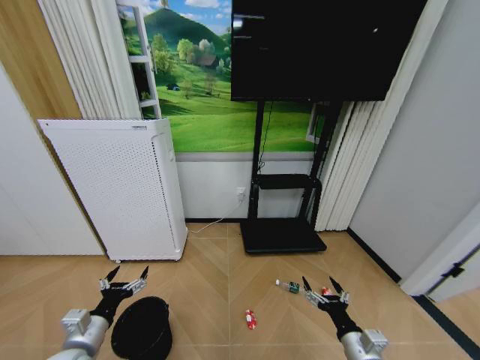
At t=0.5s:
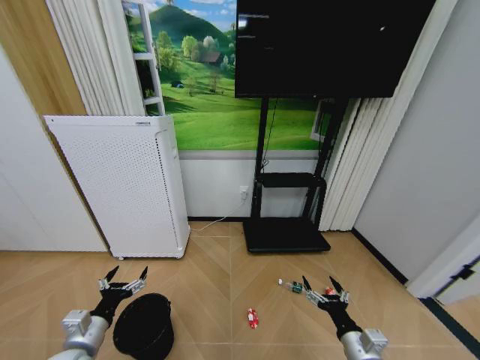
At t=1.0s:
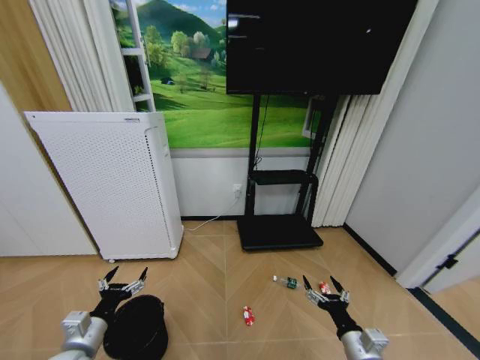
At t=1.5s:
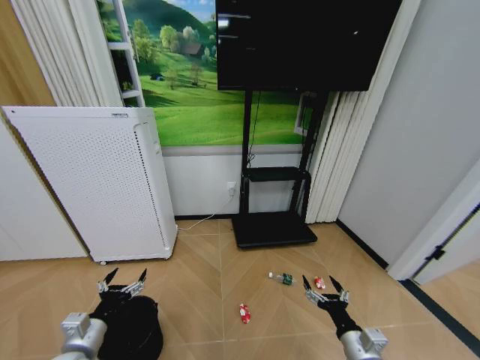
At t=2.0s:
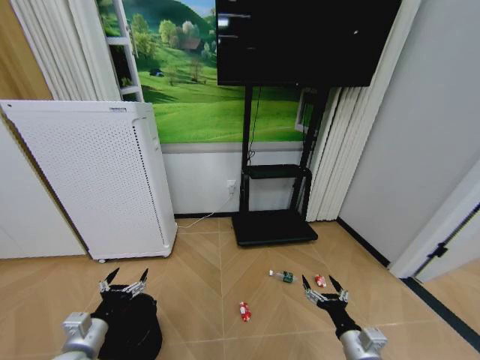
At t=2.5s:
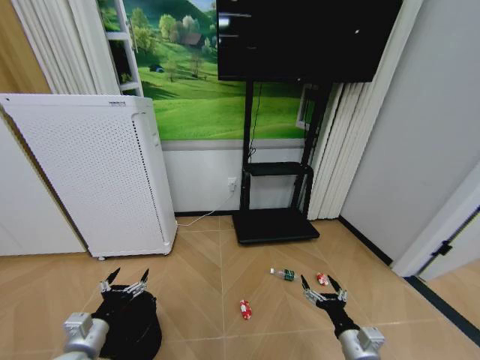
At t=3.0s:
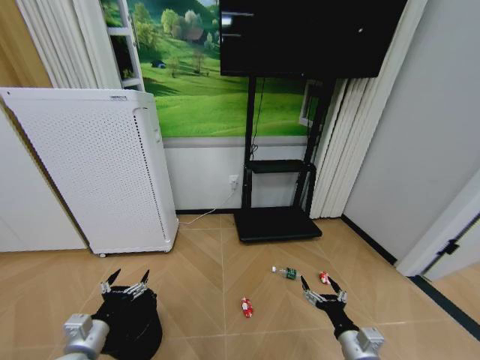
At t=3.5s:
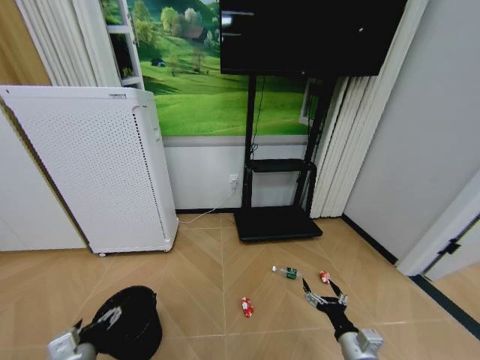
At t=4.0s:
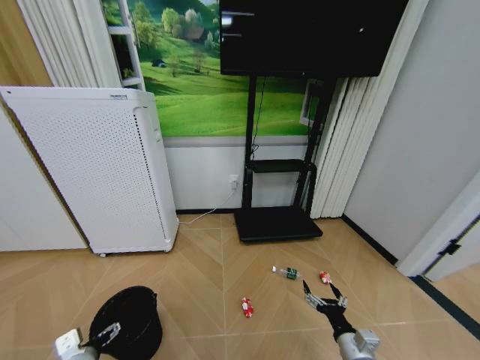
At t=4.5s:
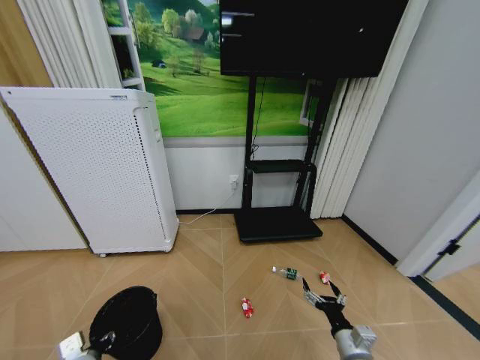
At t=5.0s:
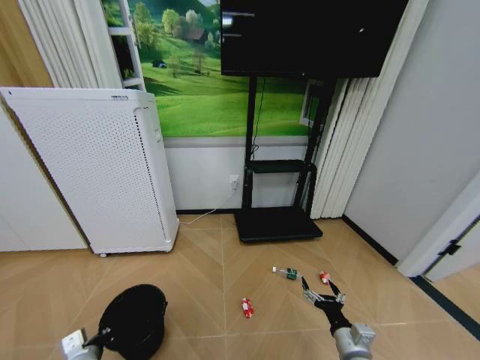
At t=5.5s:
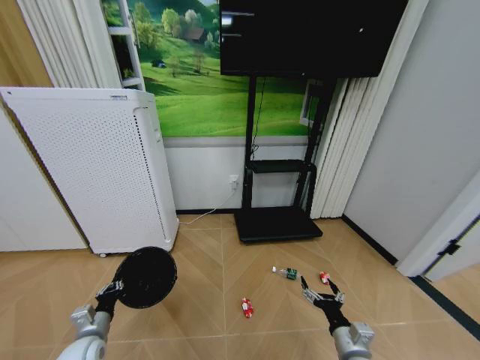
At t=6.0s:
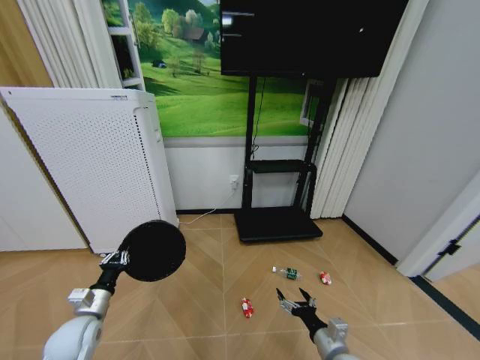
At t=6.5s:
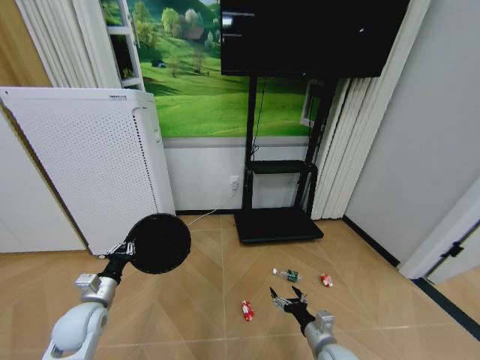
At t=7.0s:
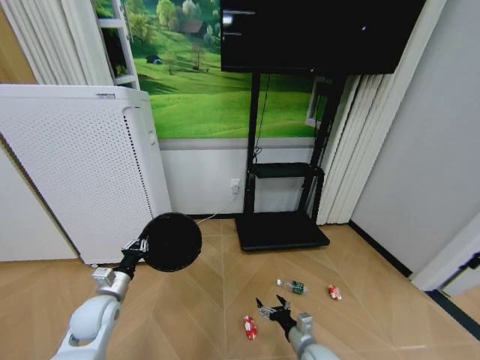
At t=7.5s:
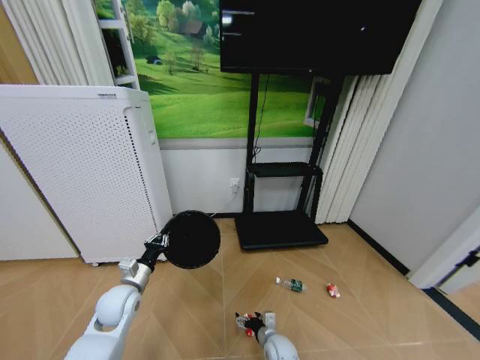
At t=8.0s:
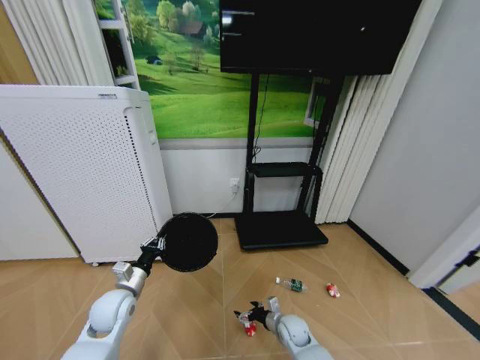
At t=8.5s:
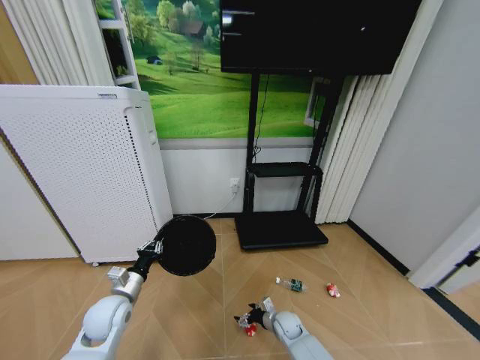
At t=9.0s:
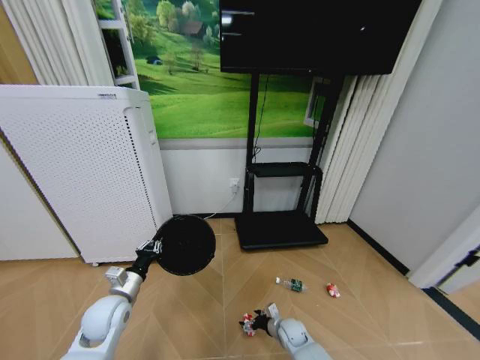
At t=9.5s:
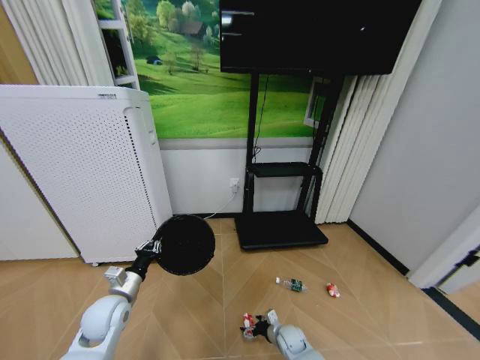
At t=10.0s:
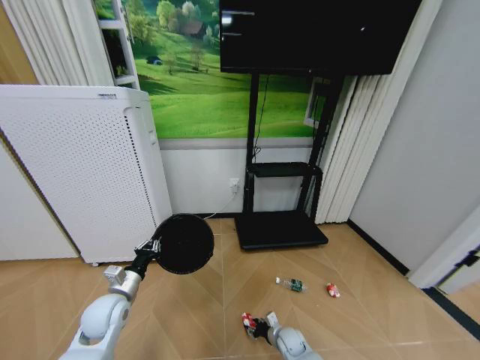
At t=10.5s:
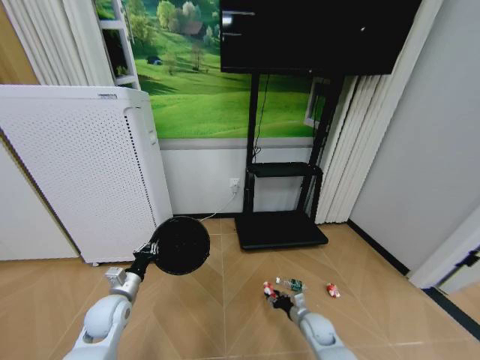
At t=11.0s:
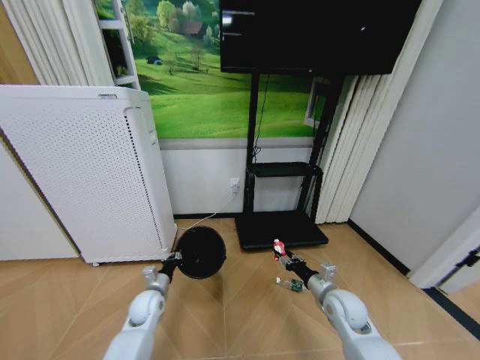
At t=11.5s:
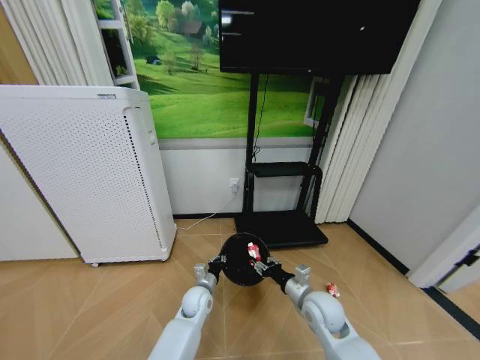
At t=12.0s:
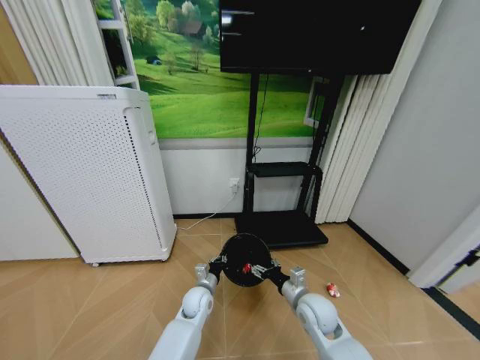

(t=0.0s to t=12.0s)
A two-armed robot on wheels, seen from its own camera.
Task of the whole recording: Pick up the trash bin and place the garbage on the floor into it.
t=4.0s - t=6.0s: The left gripper goes about 10 cm forward, and closes.
t=6.0s - t=8.0s: The right gripper moves forward, downward and to the left, approximately 20 cm. Meanwhile the left gripper heads to the right, covering approximately 5 cm.
t=8.0s - t=10.0s: The right gripper travels downward by roughly 10 cm, and closes.
t=10.0s - t=12.0s: The left gripper is displaced to the right and downward by some 25 cm. Meanwhile the right gripper heads upward, covering about 25 cm.

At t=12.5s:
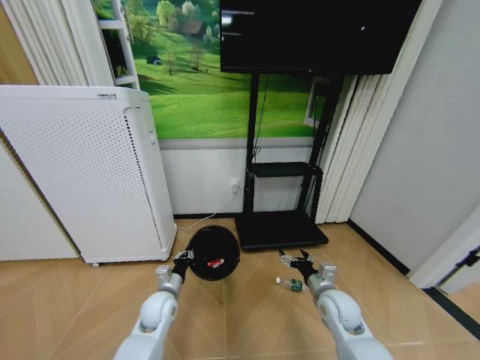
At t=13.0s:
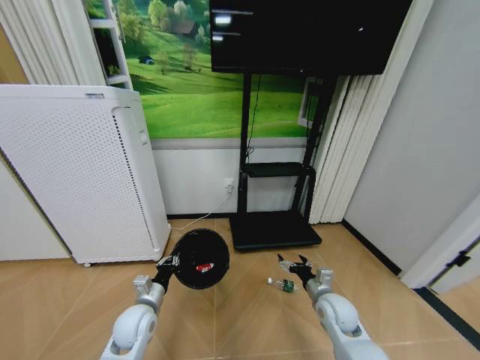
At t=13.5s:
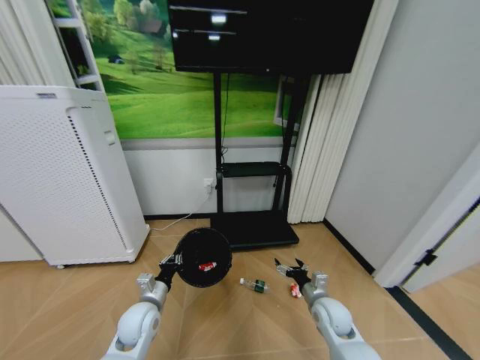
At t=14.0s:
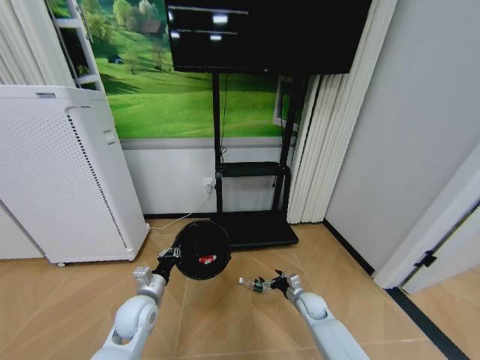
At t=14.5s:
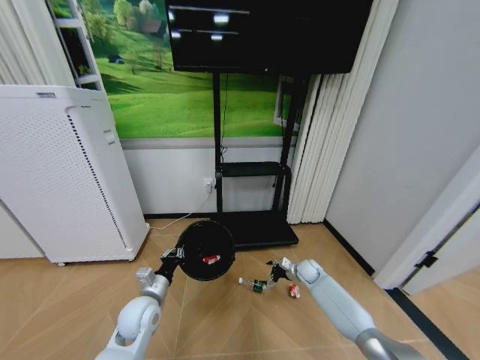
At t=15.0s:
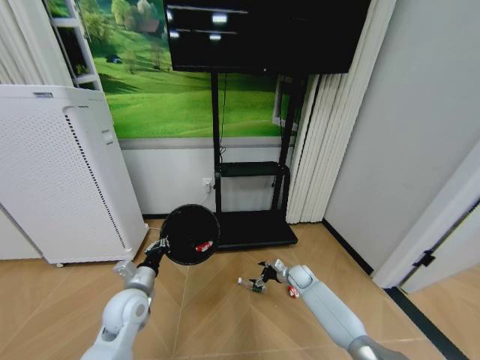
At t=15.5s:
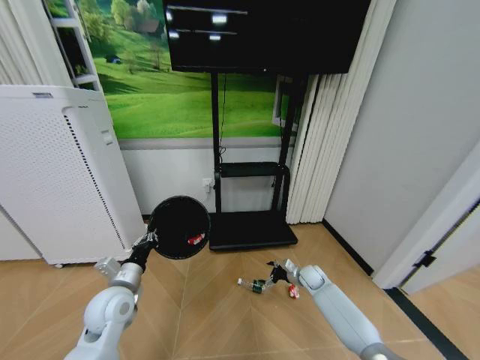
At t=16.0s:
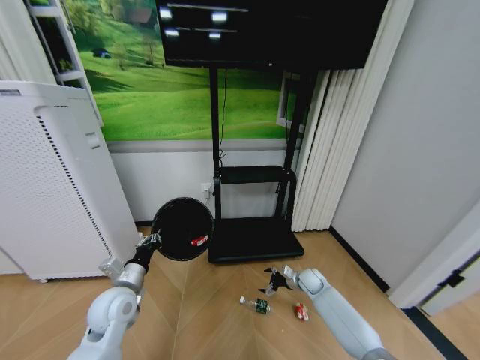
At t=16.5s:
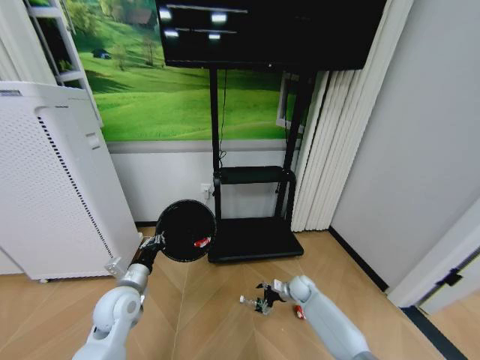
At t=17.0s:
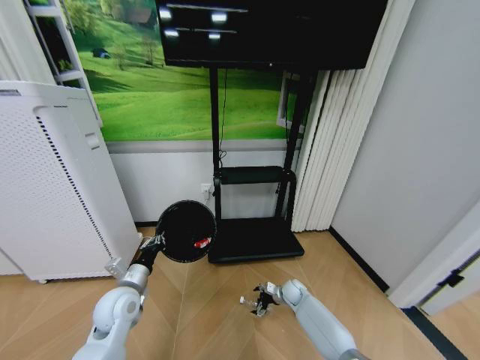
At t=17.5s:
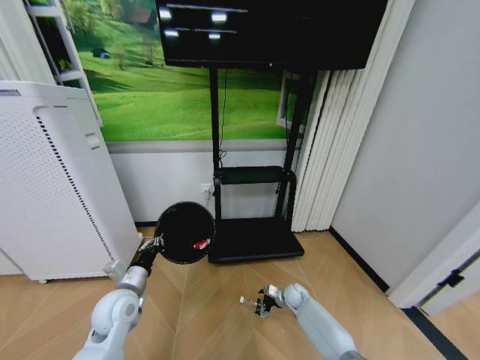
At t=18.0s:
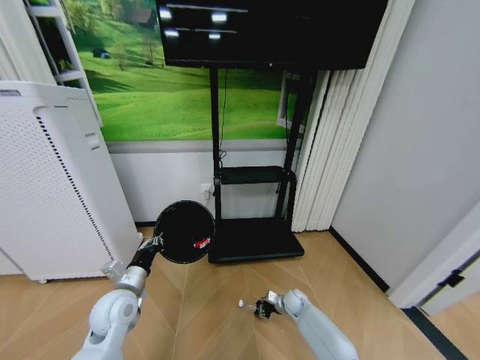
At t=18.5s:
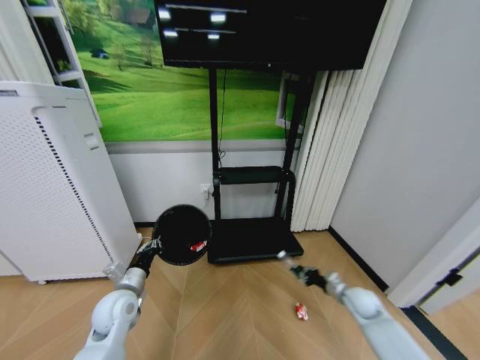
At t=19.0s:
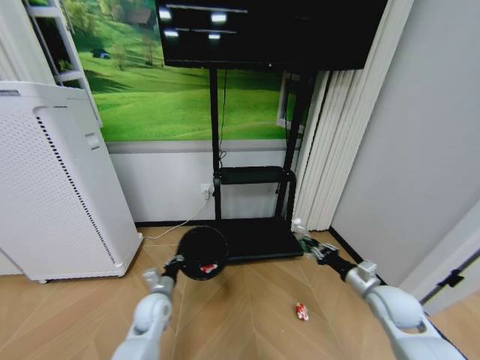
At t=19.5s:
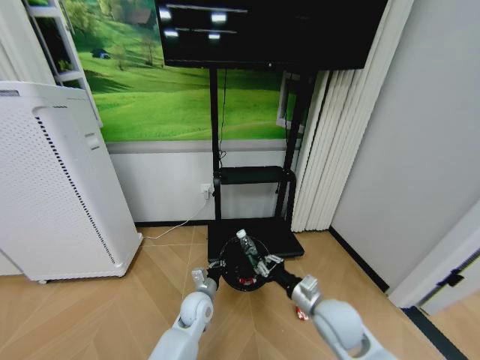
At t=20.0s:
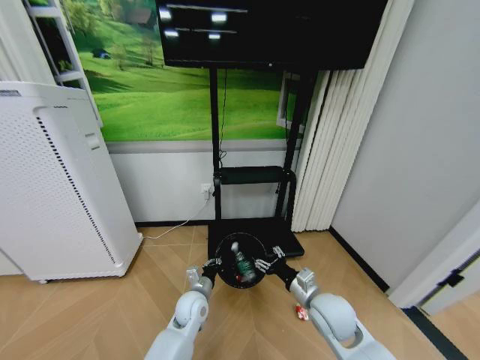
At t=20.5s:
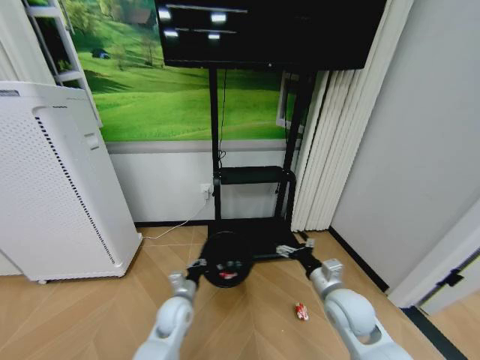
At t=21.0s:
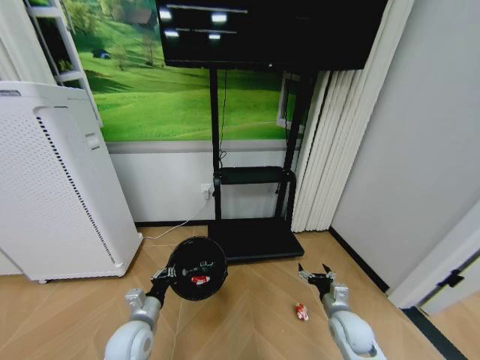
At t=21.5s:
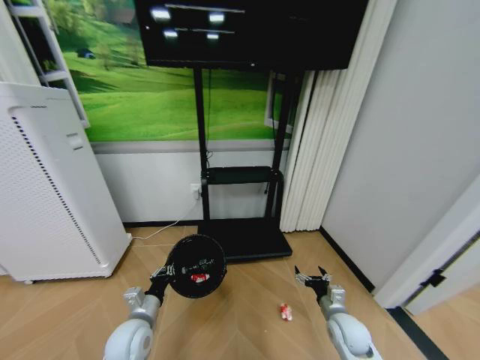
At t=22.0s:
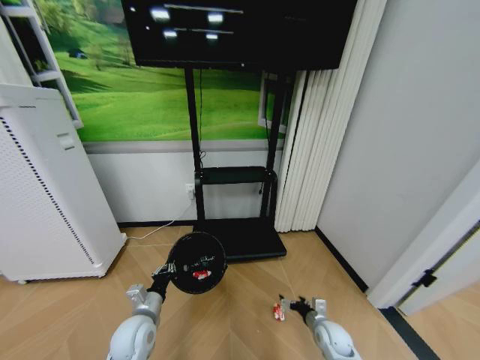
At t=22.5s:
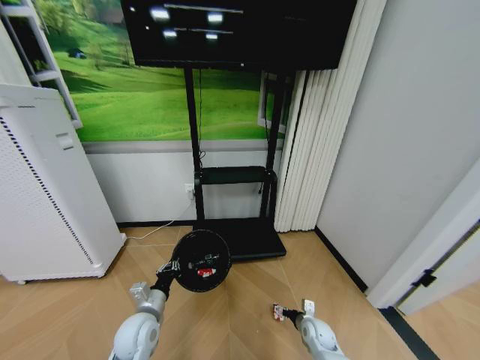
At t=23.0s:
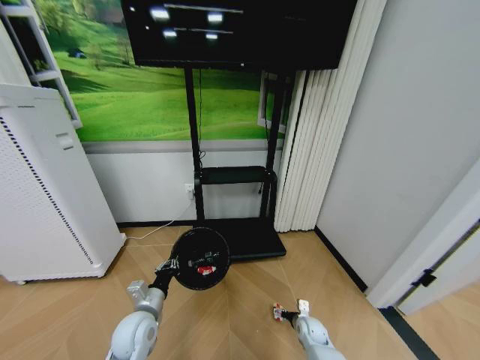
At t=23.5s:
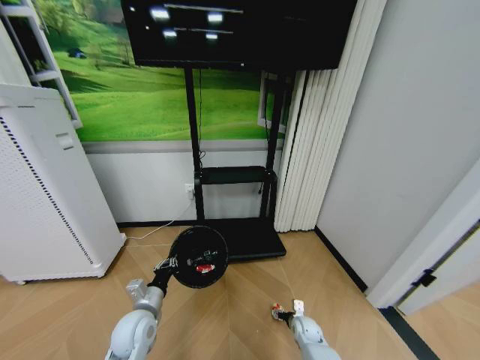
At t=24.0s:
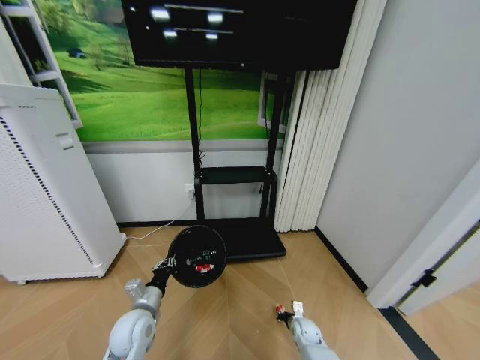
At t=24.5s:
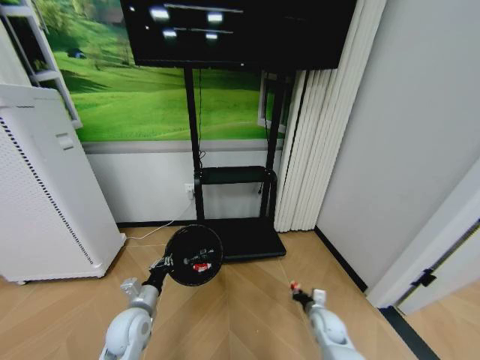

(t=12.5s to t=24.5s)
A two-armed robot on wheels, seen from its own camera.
Task of the whole recording: Pick up the trash bin and place the garbage on the floor into it.
t=12.5s - t=14.5s: The right gripper is displaced forward and downward by about 20 cm. Meanwhile the left gripper changes place by roughly 5 cm.
t=14.5s - t=16.5s: The left gripper moves approximately 5 cm; the right gripper ends up roughly 5 cm from where it was.
t=16.5s - t=18.5s: The right gripper moves to the right, backward and upward, about 15 cm, and closes its fingers.
t=18.5s - t=20.5s: The left gripper travels to the right and downward by about 15 cm; the right gripper moves upward, to the left and backward, some 25 cm, and opens its fingers.
t=20.5s - t=22.5s: The left gripper moves to the left and backward, approximately 10 cm; the right gripper goes some 25 cm downward.
t=22.5s - t=24.5s: The right gripper travels upward by about 5 cm, and closes its fingers.

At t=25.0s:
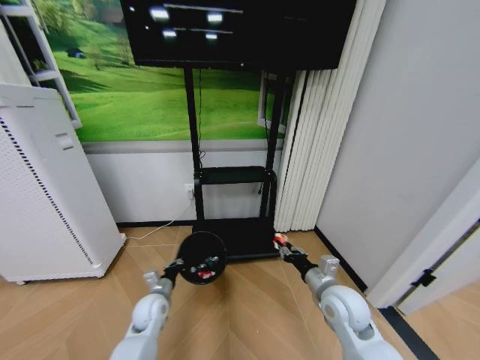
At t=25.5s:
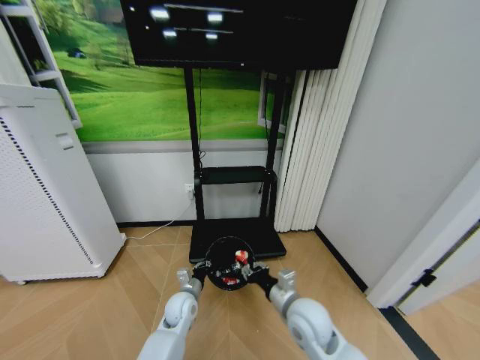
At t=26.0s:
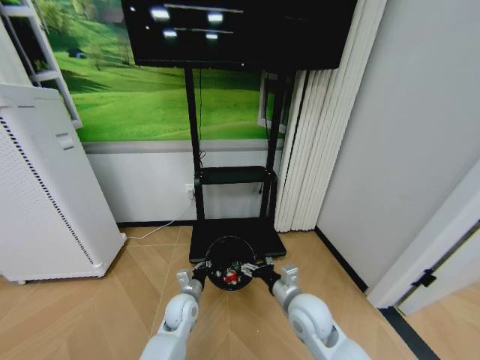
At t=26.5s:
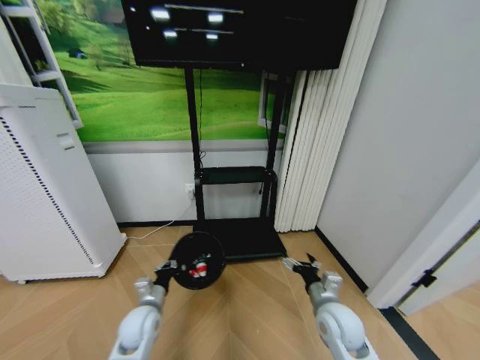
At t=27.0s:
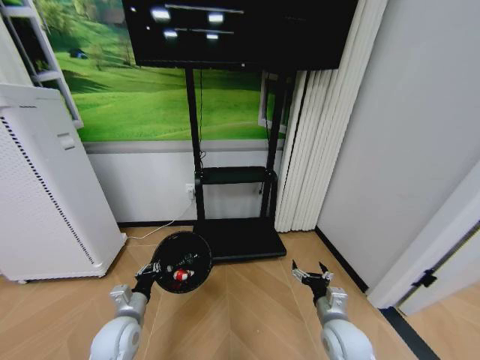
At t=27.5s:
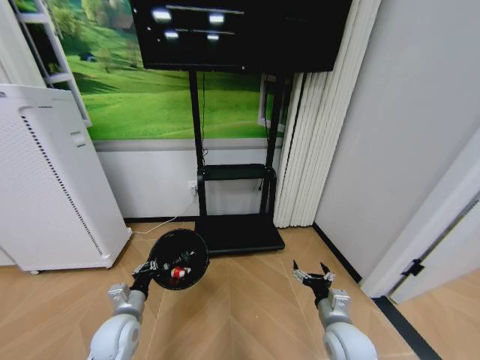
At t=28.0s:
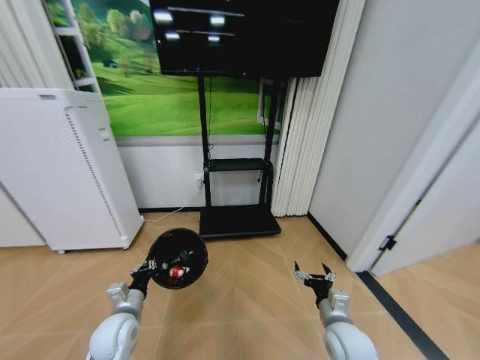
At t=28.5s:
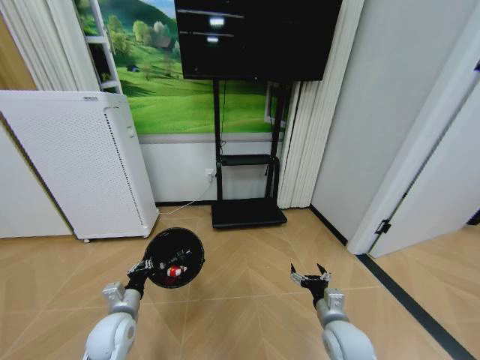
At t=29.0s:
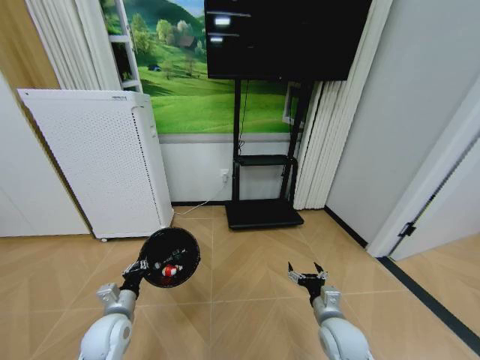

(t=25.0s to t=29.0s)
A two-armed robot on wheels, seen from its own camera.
Task of the whole recording: Pick up the trash bin and place the garbage on the floor into it.
t=25.0s - t=27.0s: The right gripper goes some 10 cm downward and backward, travels to the left and back again, about 10 cm each way, and opens its fingers. Meanwhile the left gripper is displaced backward and upward by about 10 cm, and travels to the right and back again, approximately 10 cm each way.
